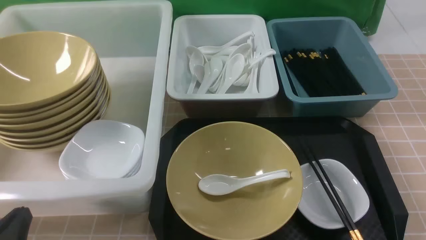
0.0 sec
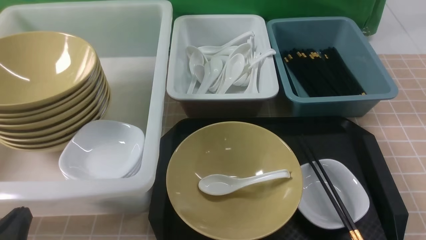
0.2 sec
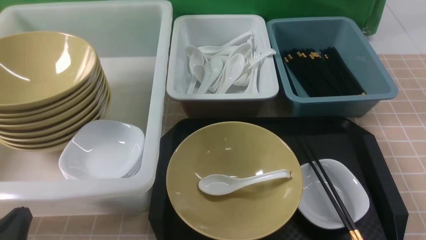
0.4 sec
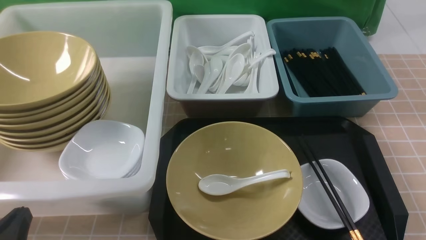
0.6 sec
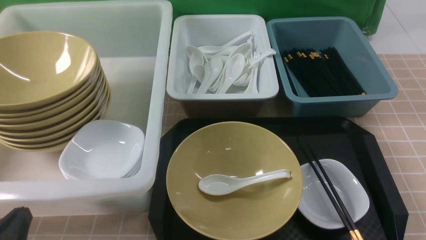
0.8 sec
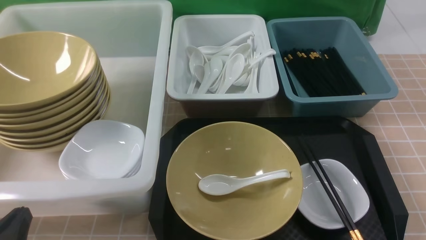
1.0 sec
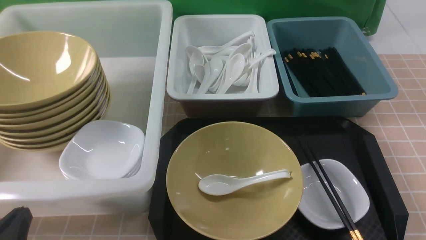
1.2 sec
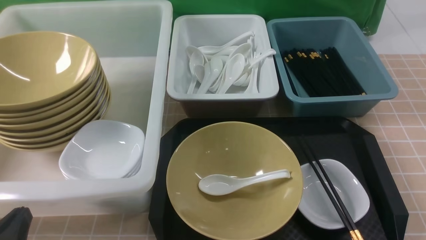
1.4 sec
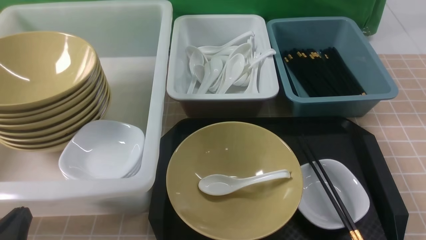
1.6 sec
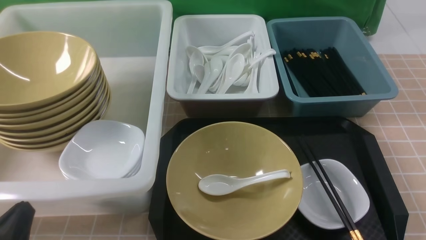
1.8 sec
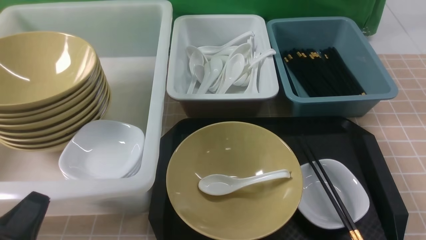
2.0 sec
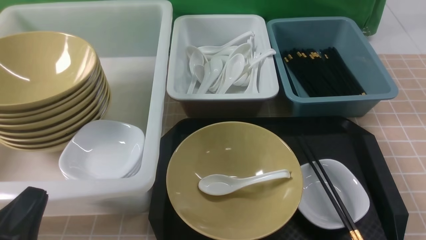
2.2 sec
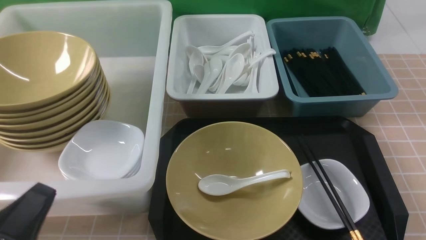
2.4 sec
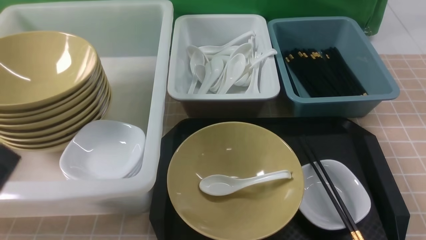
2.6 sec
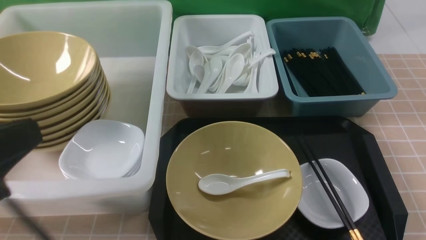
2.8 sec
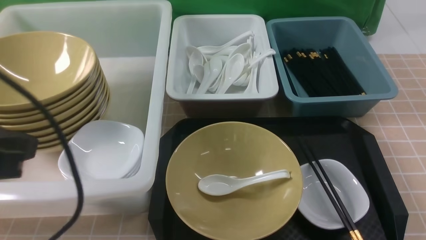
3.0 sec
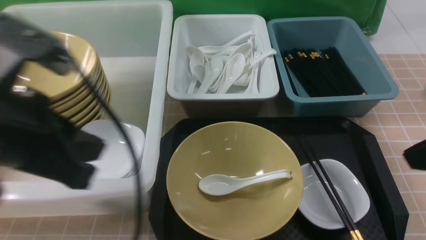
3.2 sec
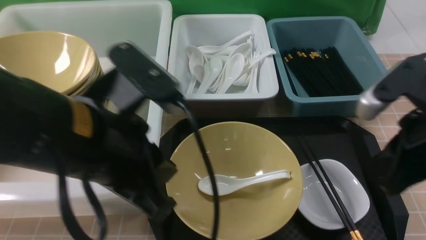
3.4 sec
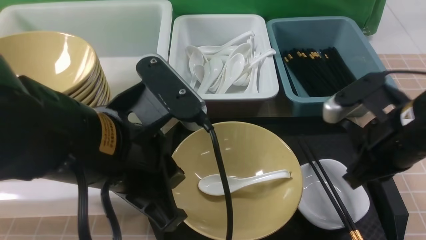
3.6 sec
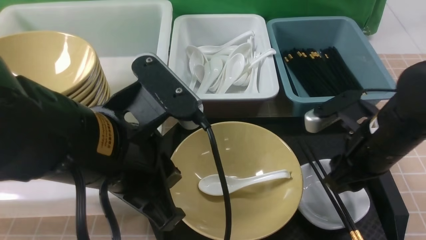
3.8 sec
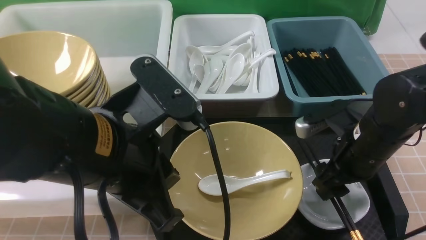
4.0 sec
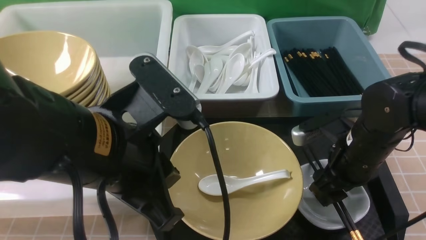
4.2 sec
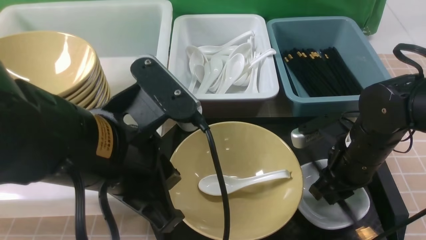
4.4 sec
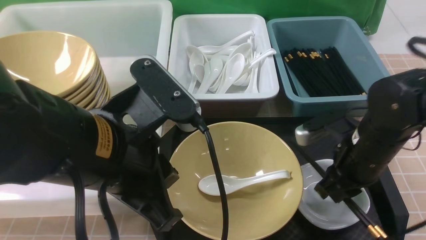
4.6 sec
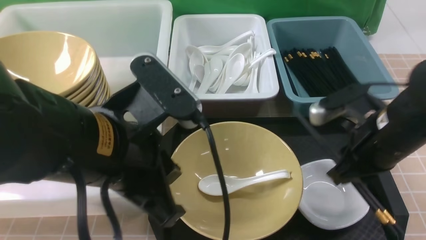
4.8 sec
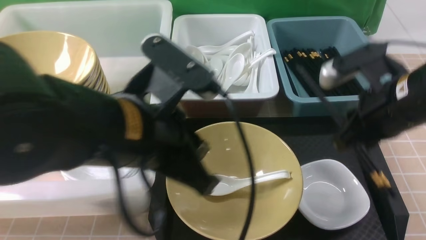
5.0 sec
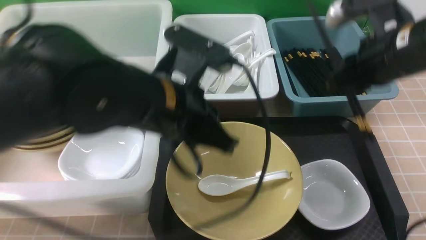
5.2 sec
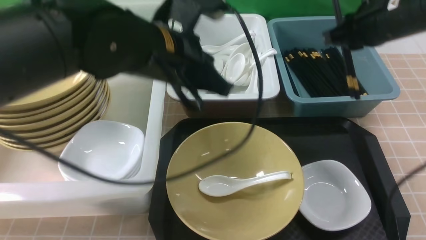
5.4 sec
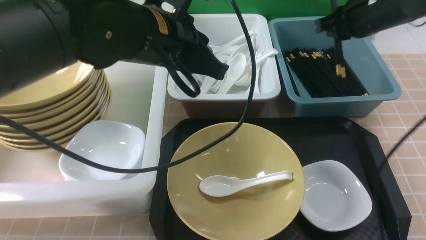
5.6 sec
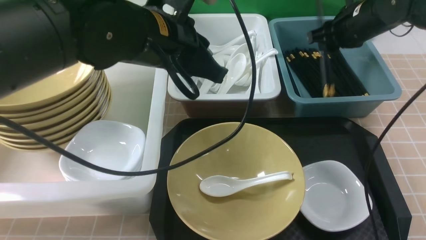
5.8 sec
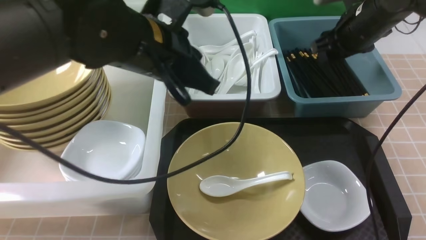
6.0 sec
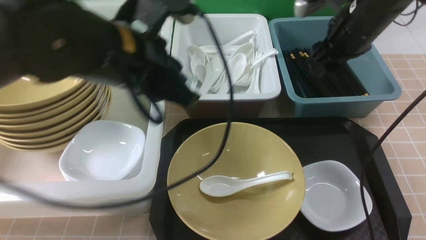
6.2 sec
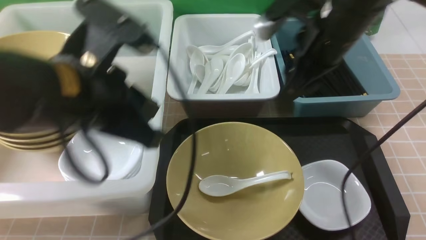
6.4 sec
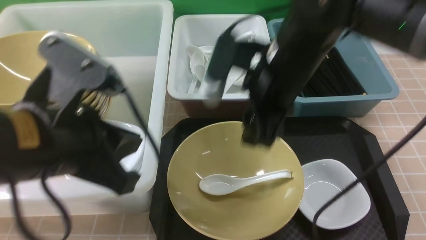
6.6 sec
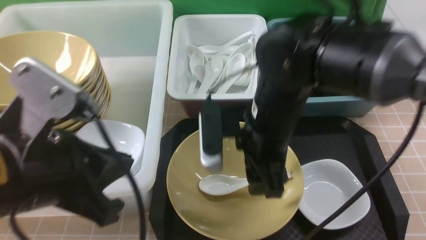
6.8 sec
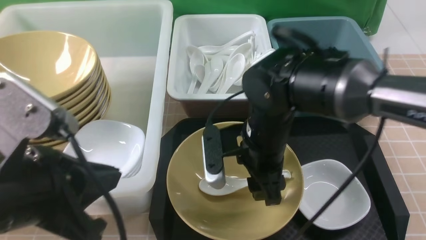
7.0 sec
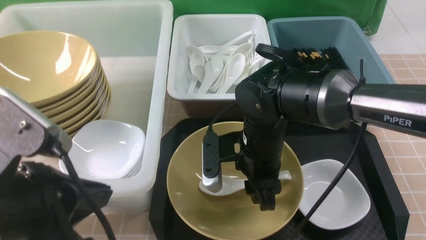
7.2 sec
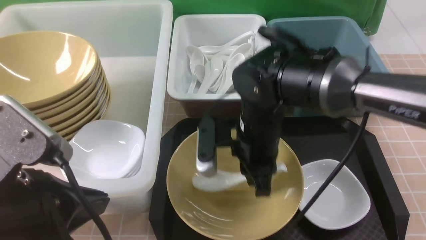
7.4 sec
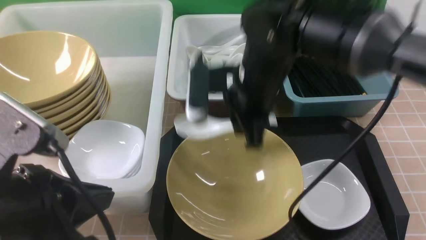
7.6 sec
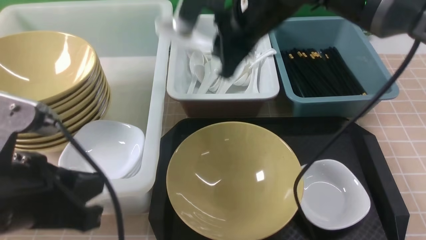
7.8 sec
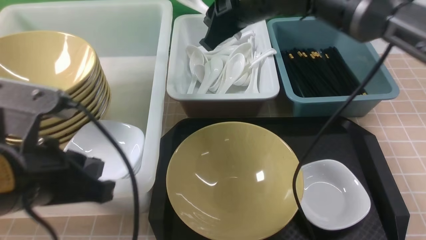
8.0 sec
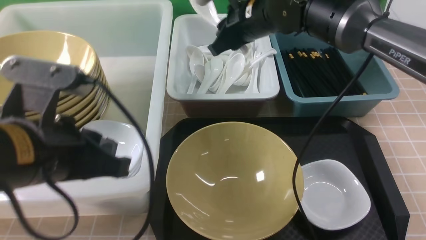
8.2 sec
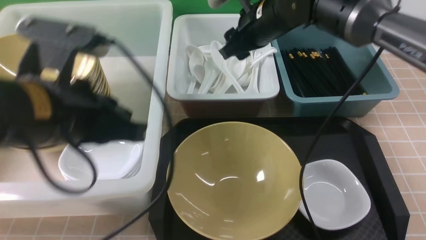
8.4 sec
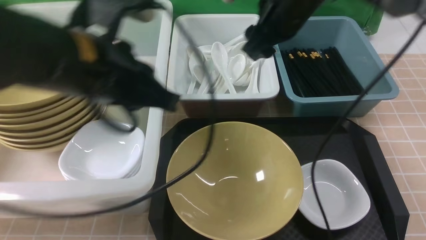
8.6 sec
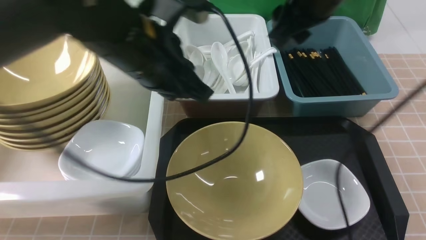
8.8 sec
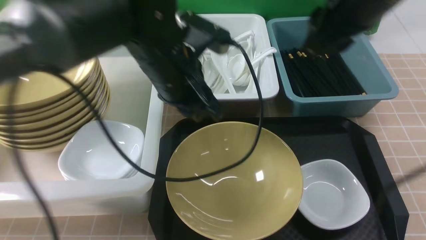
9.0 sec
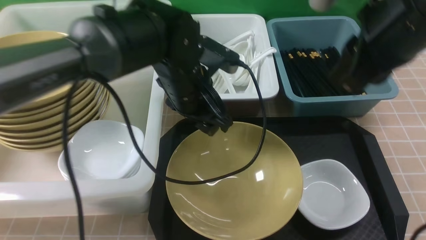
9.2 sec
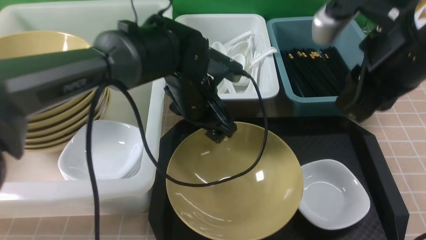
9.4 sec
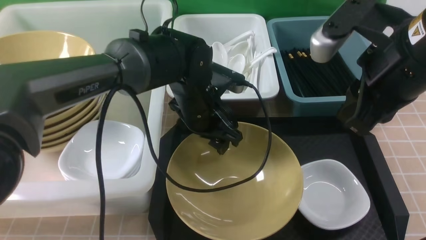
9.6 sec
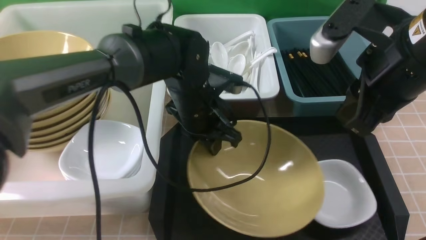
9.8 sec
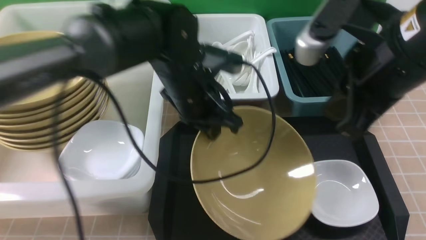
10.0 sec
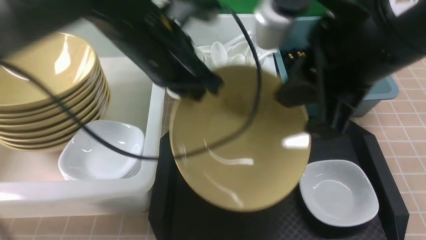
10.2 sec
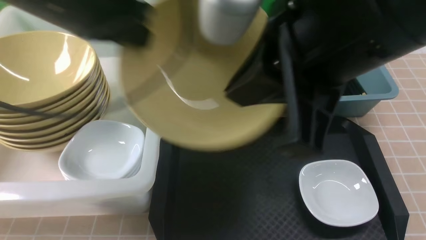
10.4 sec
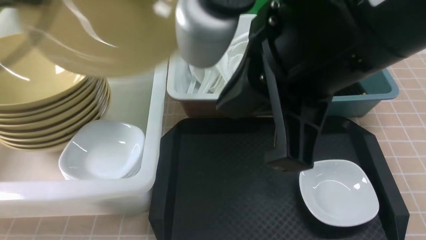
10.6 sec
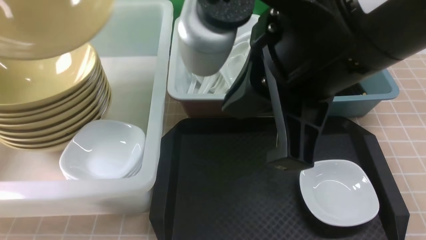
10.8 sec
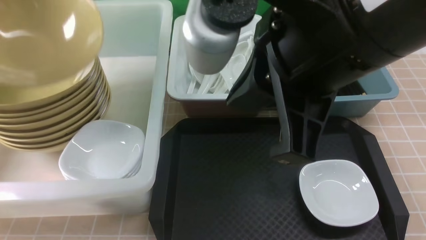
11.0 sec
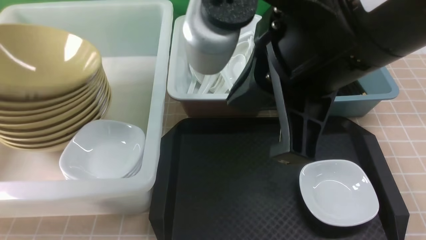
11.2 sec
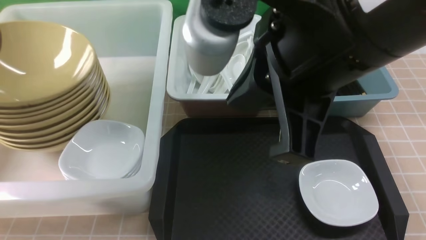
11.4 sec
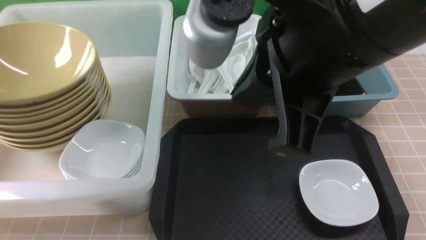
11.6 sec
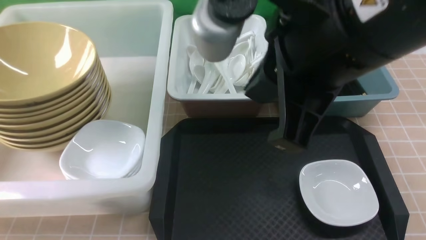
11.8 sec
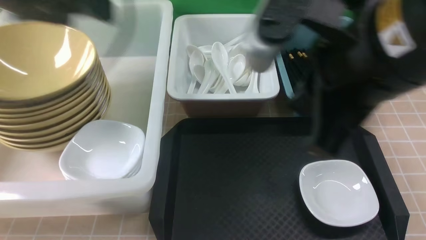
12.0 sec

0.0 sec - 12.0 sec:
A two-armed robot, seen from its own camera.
Task of the whole recording: on brown table put chopsticks spoon bowls plates into blue grey white boxes.
Step, 0.0 sec - 4.6 sec: use the right arm to grab a chopstick.
Step, 5.0 sec - 6.0 sec: use the right arm to put a chopstick into the small storage box on the right.
Step, 6.4 sec - 7.4 sec: use the right arm to grab the soup spoon in the middle.
Step, 7.6 sec - 8.4 sec: use the right arm to put the soup spoon into the small storage box in the middle.
Step, 8.8 sec - 10.2 sec: use the left arm to grab the yellow noodle bowl on the left.
Step, 10.4 sec - 11.6 sec: use the left arm to put the noodle bowl into the large storage box on the left.
0.0 sec - 1.6 sec: The two grippers keep their place.
1.6 sec - 3.0 sec: The left gripper is displaced upward by approximately 20 cm.
3.0 sec - 4.4 sec: The right gripper travels downward, forward and to the left by approximately 25 cm, and opens, while the left gripper heads to the right, covering approximately 10 cm.
4.4 sec - 6.0 sec: The left gripper travels forward by some 10 cm; the right gripper travels forward and upward by approximately 20 cm, and opens its fingers.
6.0 sec - 7.6 sec: The right gripper shifts approximately 20 cm to the left and backward, and closes its fingers. Meanwhile the left gripper moves backward and to the left, about 20 cm.
7.6 sec - 9.0 sec: The right gripper heads to the right and upward, covering some 15 cm, reaches roughly 10 cm forward, then returns, and opens, then closes once more. The left gripper travels forward and to the right by approximately 25 cm.
9.0 sec - 10.4 sec: The left gripper moves to the left and upward, about 20 cm, and opens, then closes again; the right gripper heads backward and to the left, covering some 15 cm, and closes up.
10.4 sec - 12.0 sec: The right gripper shifts by approximately 5 cm; the left gripper travels to the left and back again, approximately 20 cm each way, and opens.

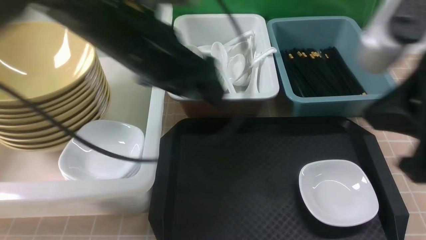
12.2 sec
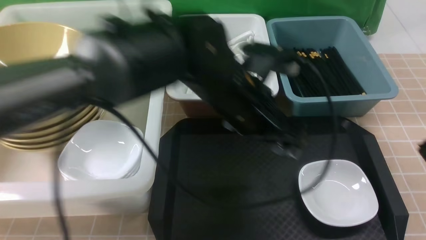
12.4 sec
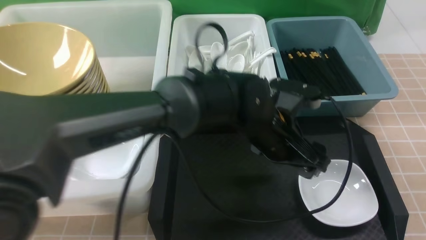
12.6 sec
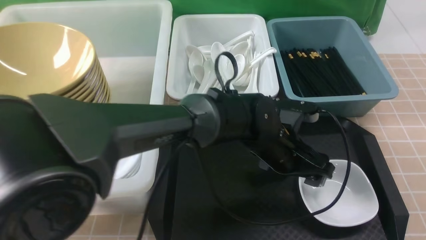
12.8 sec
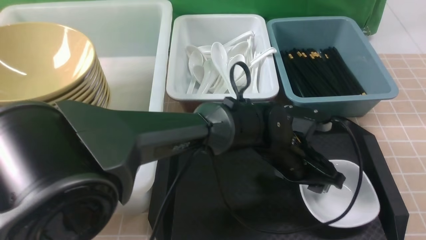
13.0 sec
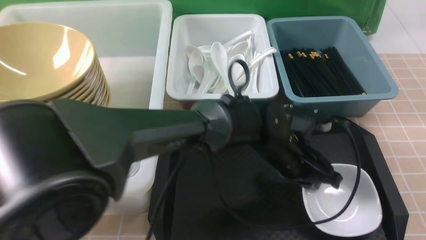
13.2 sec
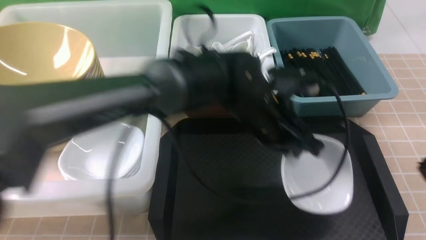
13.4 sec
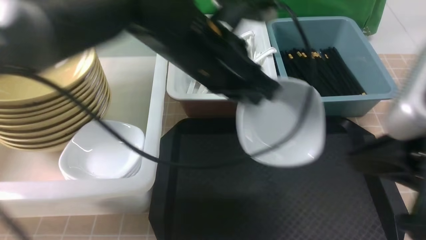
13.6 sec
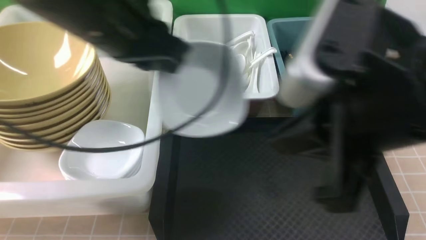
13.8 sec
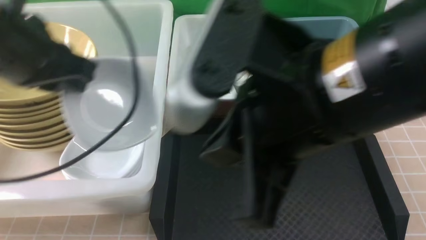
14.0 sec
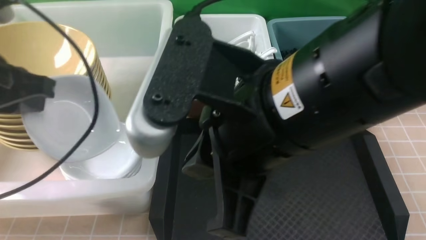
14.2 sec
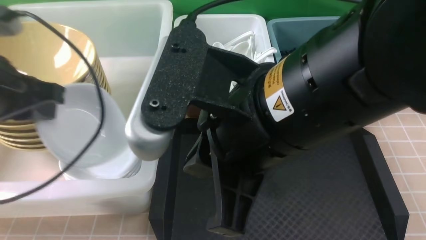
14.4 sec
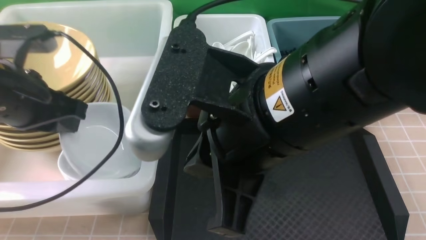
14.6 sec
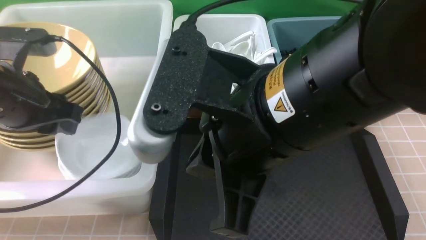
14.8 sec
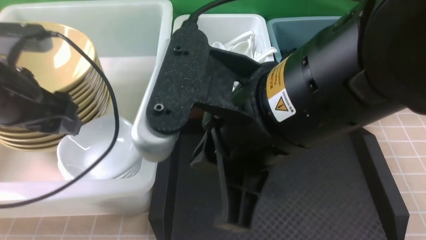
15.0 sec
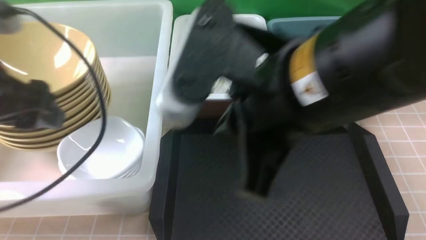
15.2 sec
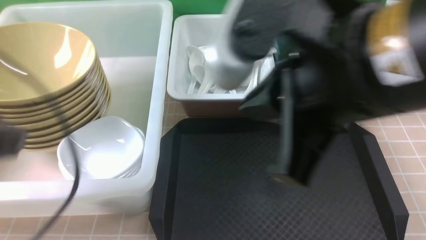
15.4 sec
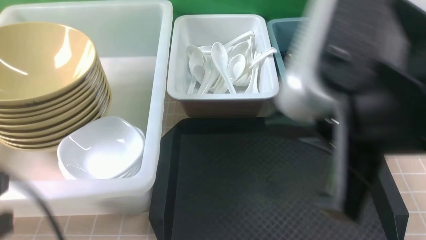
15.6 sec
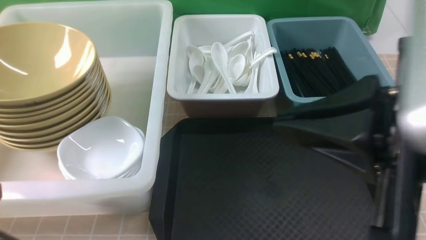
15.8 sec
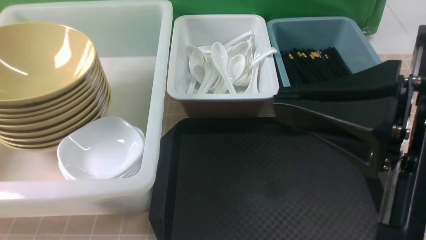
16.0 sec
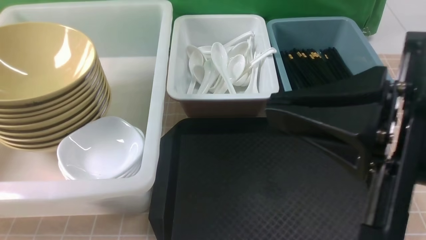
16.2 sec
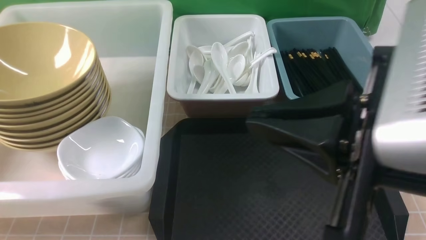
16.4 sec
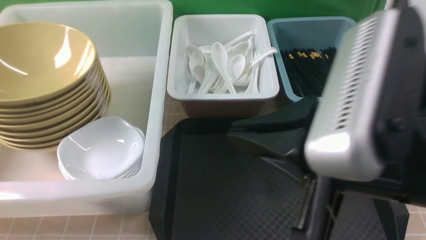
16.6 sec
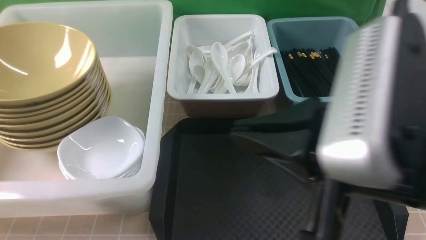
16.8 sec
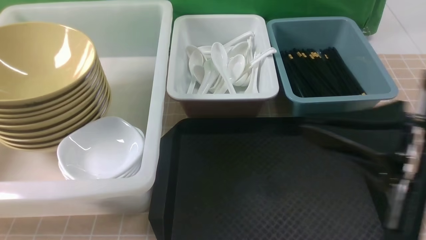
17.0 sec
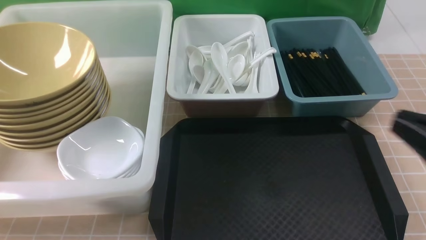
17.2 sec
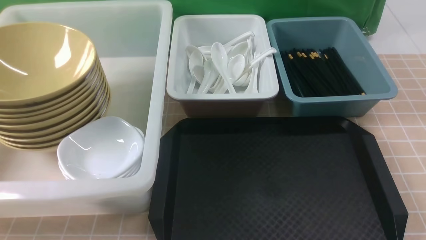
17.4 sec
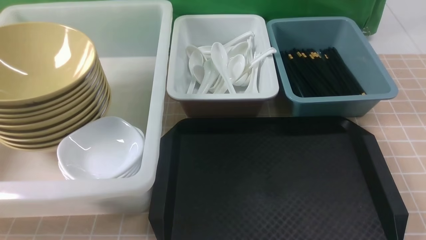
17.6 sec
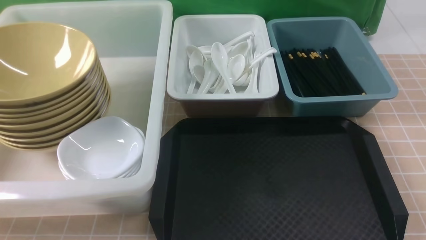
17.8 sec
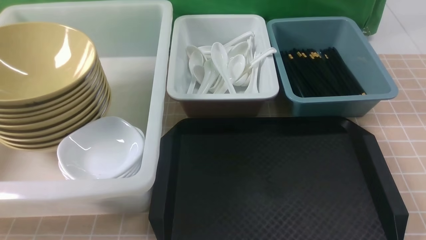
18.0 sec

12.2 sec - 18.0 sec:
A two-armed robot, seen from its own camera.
Task of the whole recording: on brown table put chopsticks spoon bowls plates into blue grey white boxes.
Step, 12.2 sec - 13.4 sec: use the left arm to grab the plate.
Step, 13.6 sec - 15.2 sec: use the left arm to put the plate into the large storage box on the left.
12.2 sec - 13.6 sec: The right gripper travels to the right and back again, roughly 10 cm each way. Meanwhile the left gripper travels downward and back again, roughly 20 cm each way, and closes its fingers.
13.6 sec - 15.0 sec: The right gripper goes roughly 15 cm to the left, while the left gripper shifts approximately 20 cm to the left, and opens.
15.0 sec - 16.6 sec: The left gripper heads backward, covering roughly 20 cm, and closes. Meanwhile the right gripper goes approximately 5 cm to the right.
16.6 sec - 18.0 sec: The right gripper goes some 30 cm downward and to the right.
